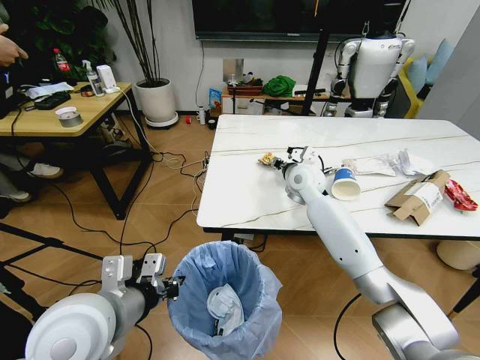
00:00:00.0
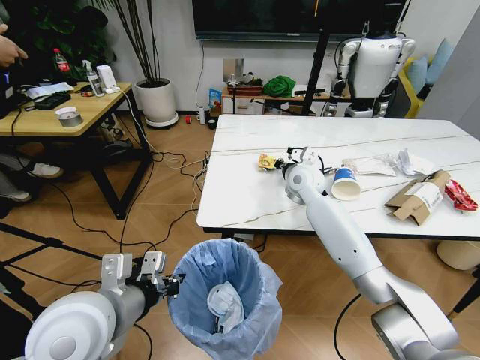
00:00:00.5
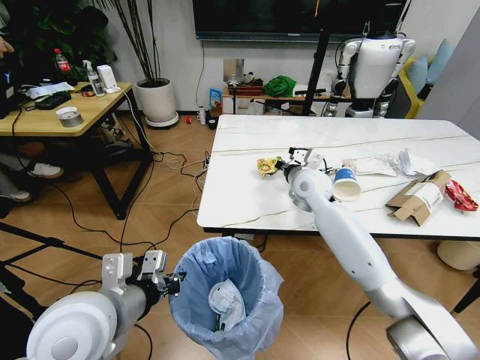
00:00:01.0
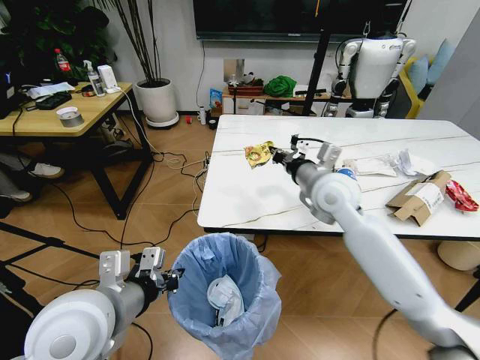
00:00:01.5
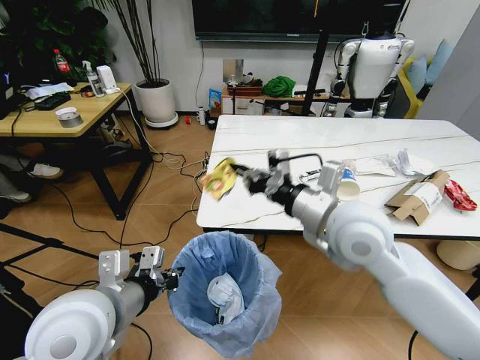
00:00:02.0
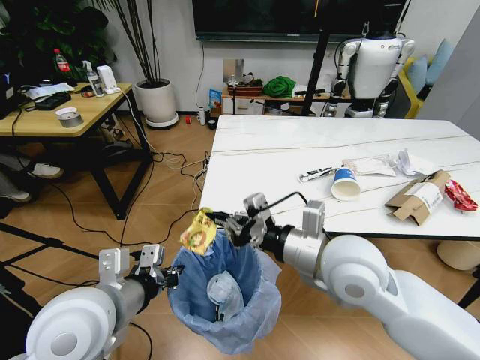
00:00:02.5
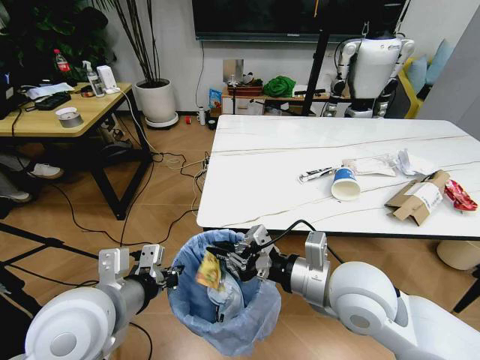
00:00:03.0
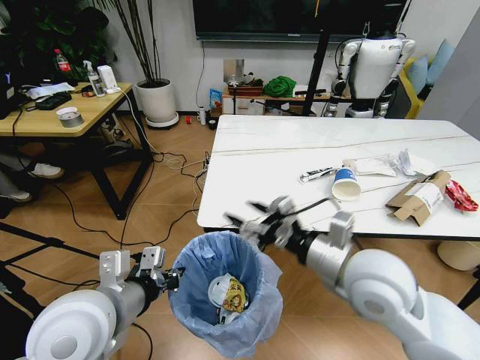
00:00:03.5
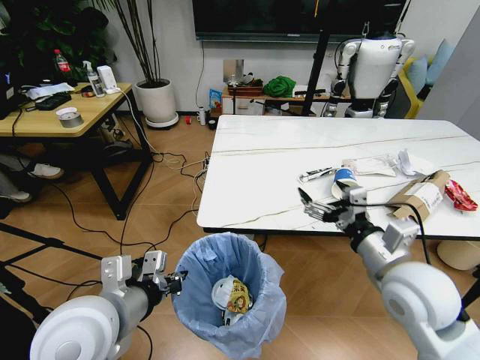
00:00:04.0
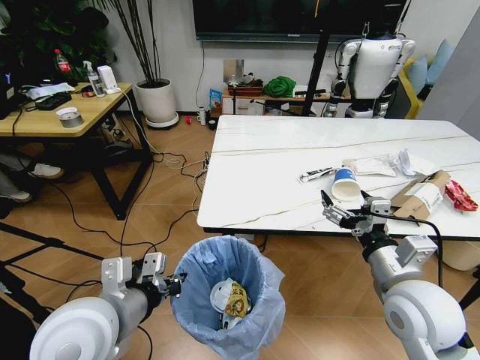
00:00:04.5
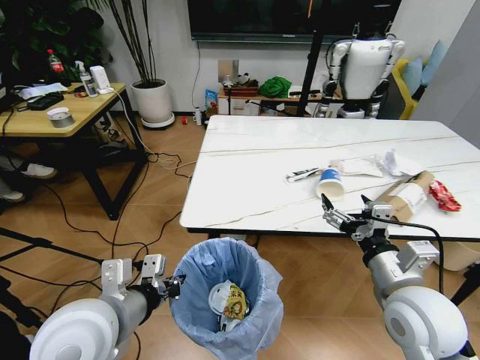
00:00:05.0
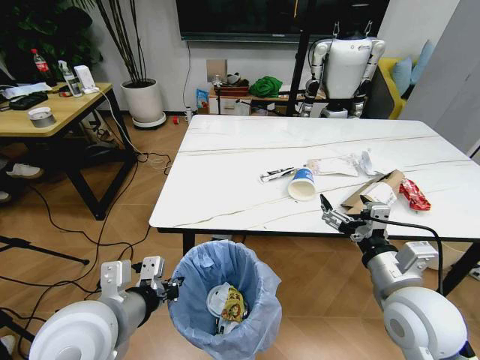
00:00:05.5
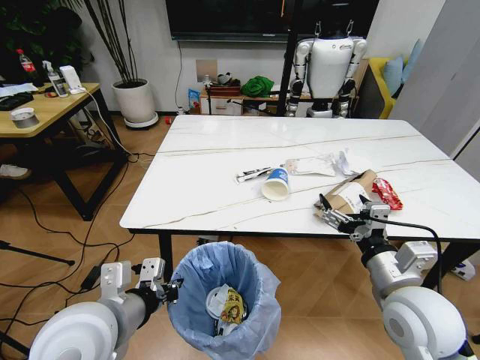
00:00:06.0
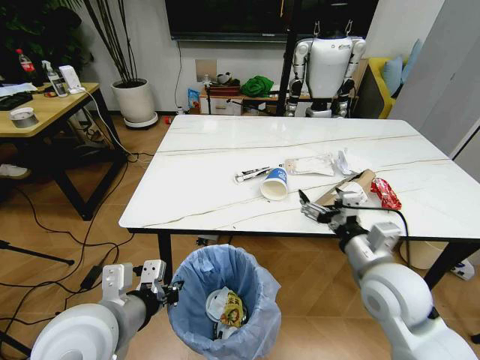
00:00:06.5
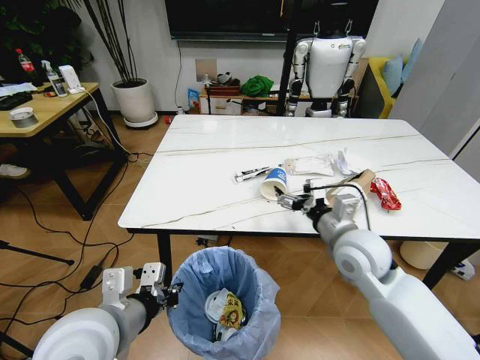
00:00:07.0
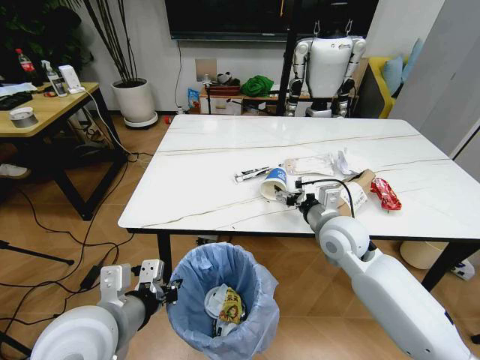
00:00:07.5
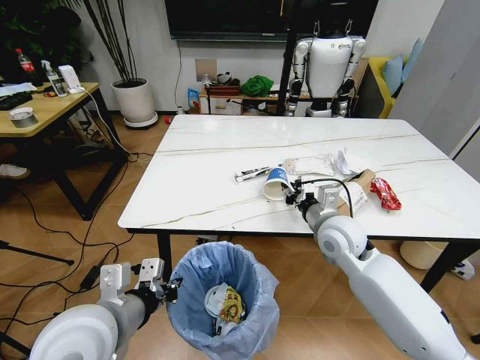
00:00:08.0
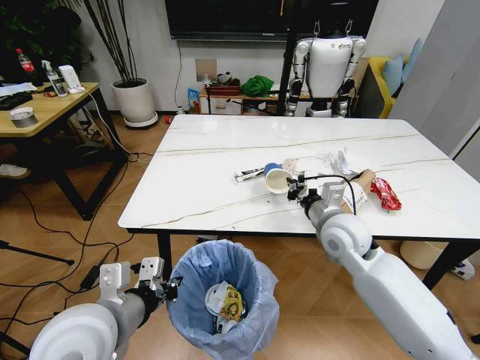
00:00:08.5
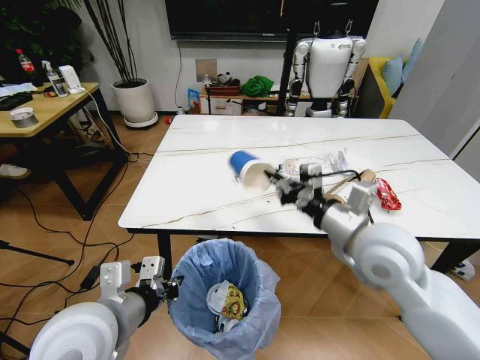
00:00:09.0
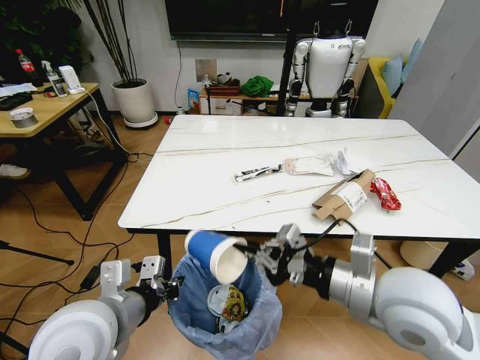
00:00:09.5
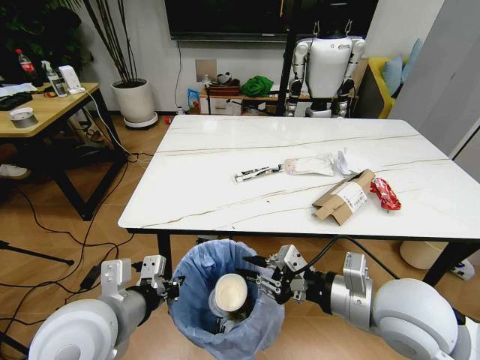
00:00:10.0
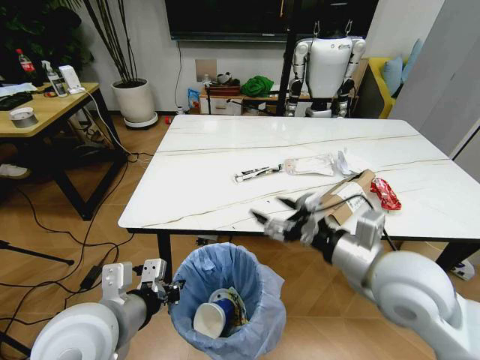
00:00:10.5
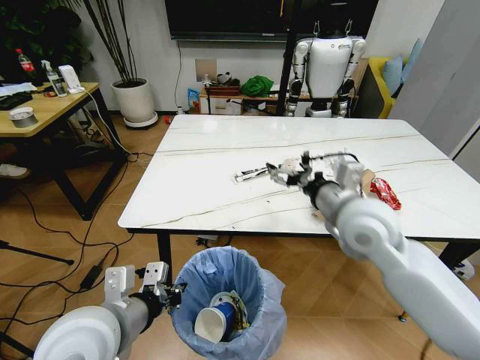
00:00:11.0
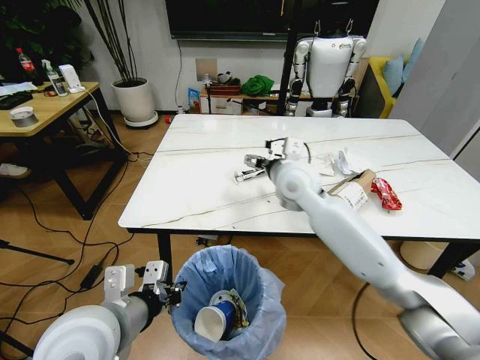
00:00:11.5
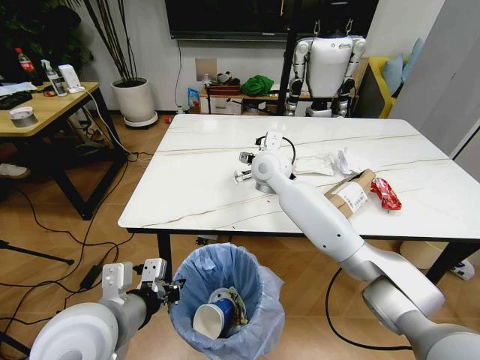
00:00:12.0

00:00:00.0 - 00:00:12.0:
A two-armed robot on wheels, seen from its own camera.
Task of the whole recording: Pick up the trash bin and place the trash from the table into it.
00:00:00.0 - 00:00:02.0: The right gripper heads backward and upward, covering some 25 cm, and closes up.
00:00:02.0 - 00:00:04.0: The right gripper heads to the right, downward and backward, covering some 15 cm, and opens up.
00:00:06.0 - 00:00:08.0: The right gripper goes roughly 15 cm forward, and closes.
00:00:08.0 - 00:00:10.0: The right gripper heads backward, covering approximately 15 cm.
00:00:10.0 - 00:00:12.0: The right gripper is displaced forward and to the left by about 35 cm, and opens up.

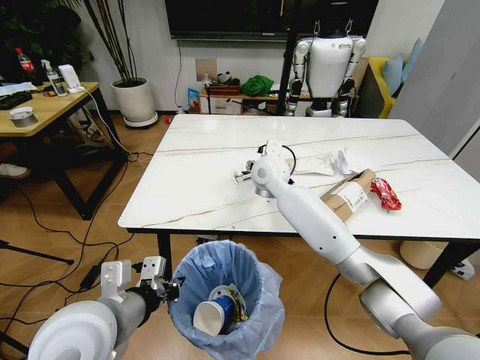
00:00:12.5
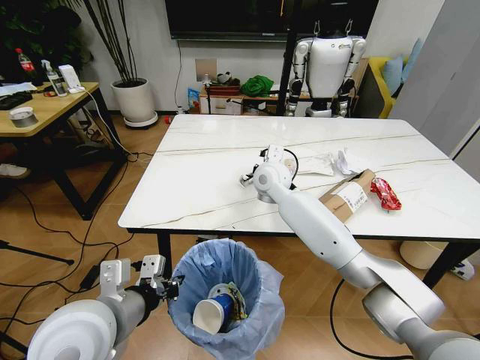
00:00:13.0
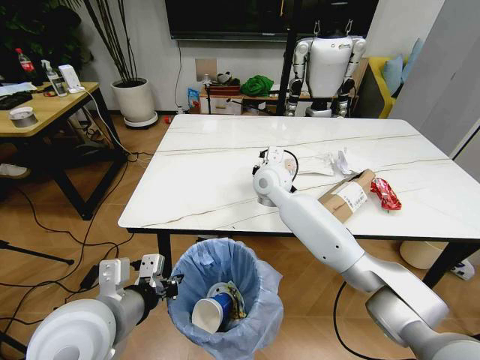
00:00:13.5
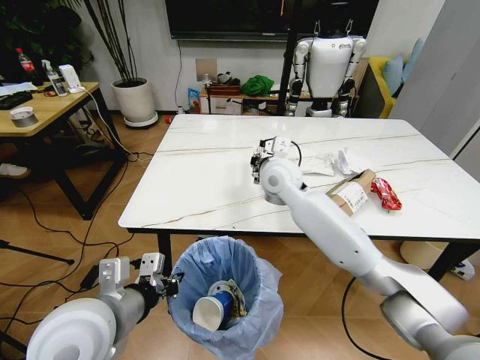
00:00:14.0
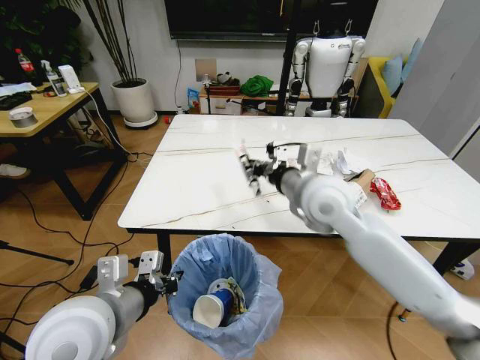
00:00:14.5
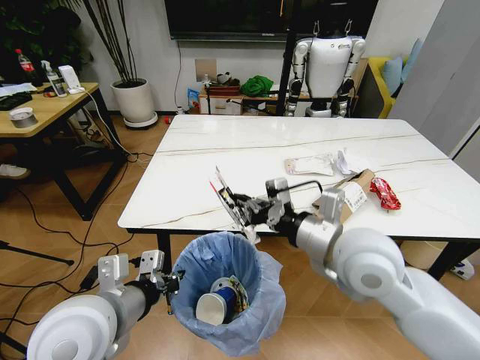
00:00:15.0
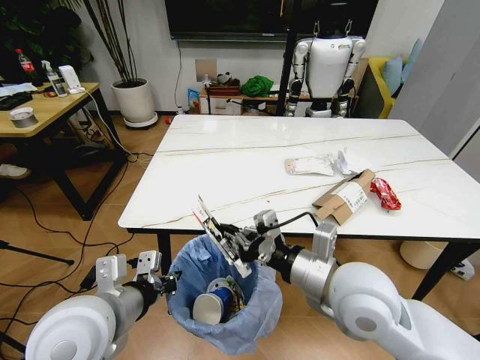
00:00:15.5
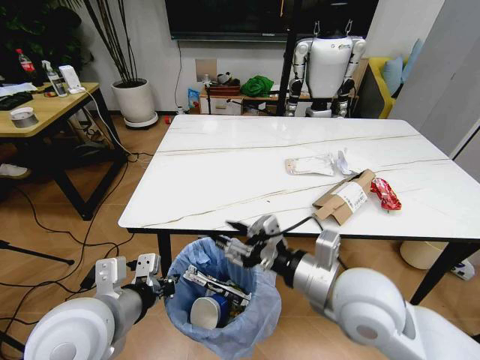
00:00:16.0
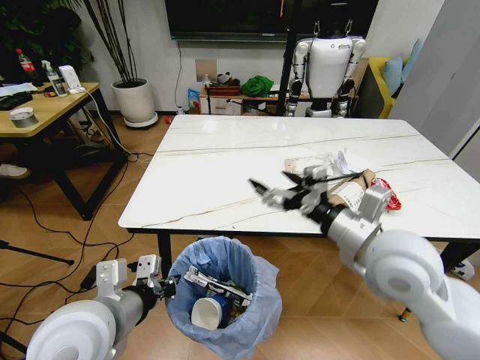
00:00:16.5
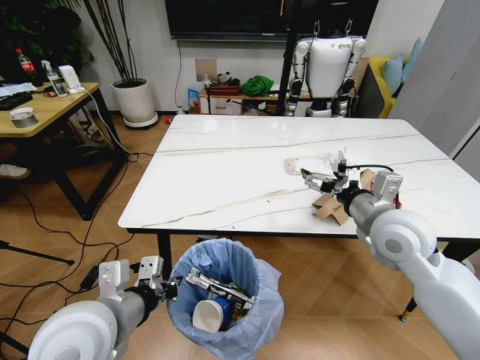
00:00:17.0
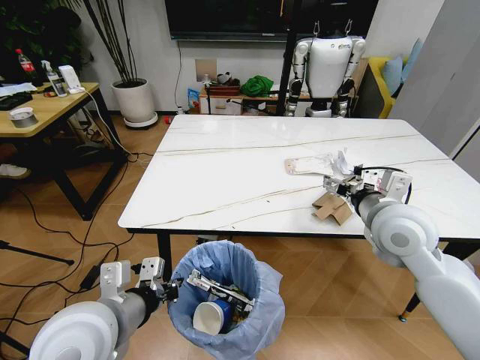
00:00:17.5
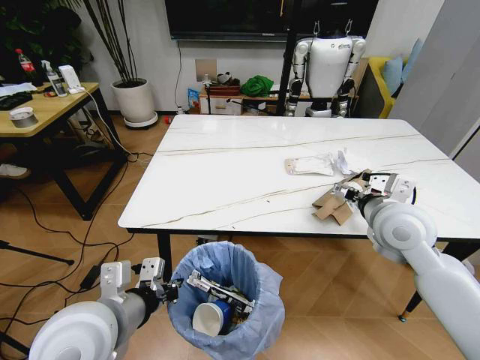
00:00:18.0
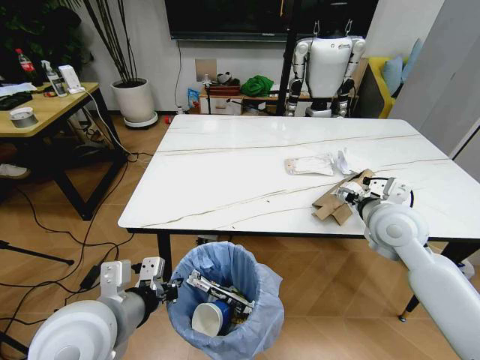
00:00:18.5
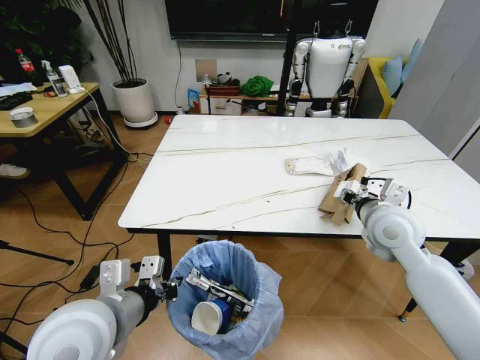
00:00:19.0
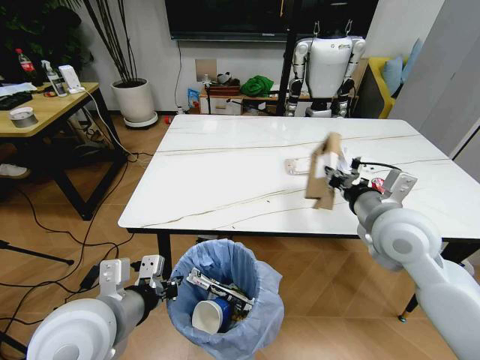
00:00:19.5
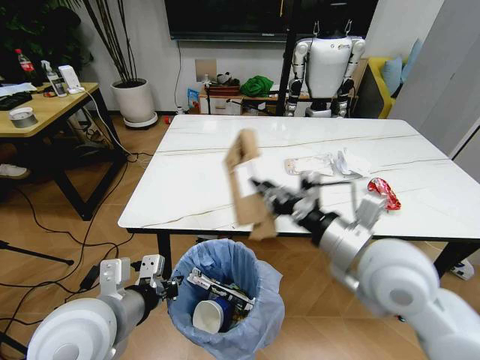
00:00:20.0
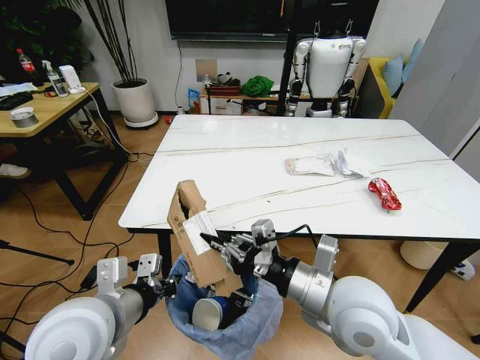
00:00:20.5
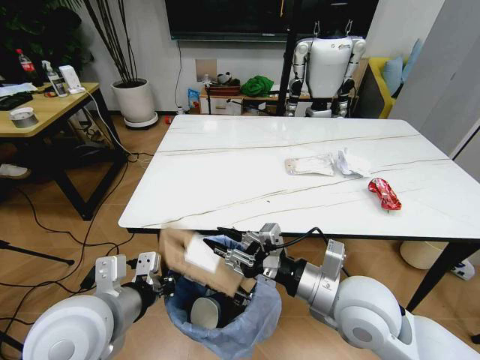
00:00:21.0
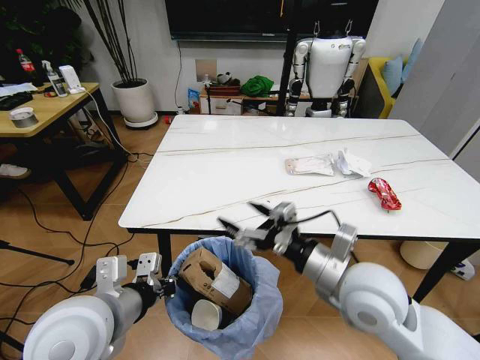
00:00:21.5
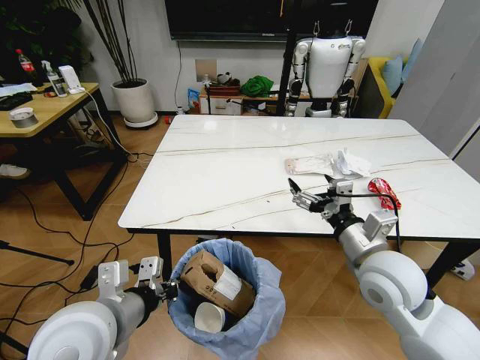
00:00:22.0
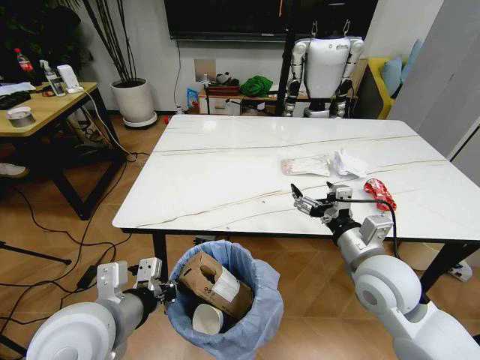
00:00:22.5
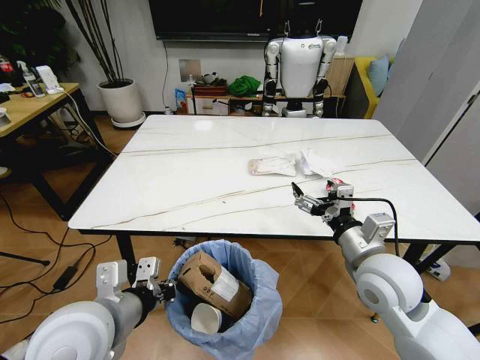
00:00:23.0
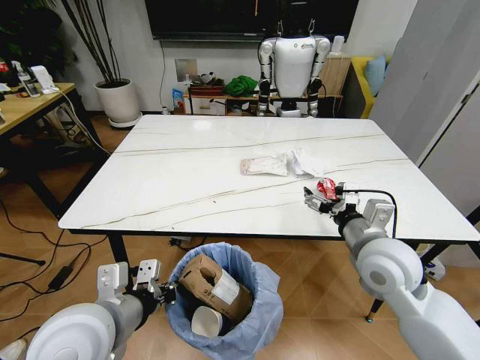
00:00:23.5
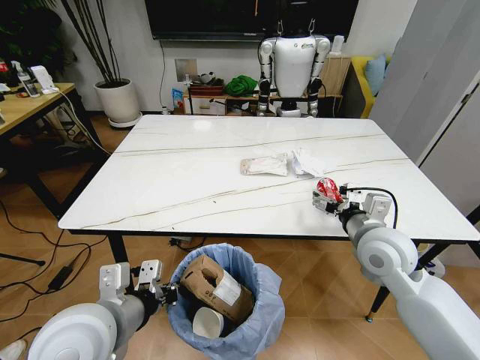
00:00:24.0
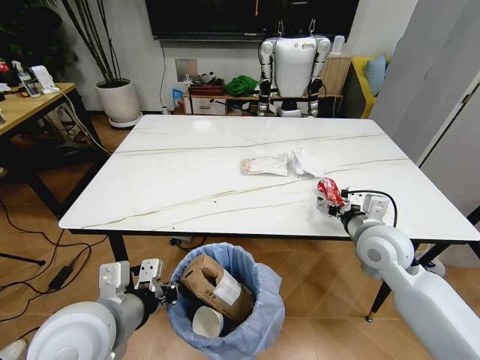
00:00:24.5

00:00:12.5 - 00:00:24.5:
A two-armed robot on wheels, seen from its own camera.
Task of the whole recording: Pick up the trash bin and place the trash from the table into it.
00:00:12.5 - 00:00:14.5: The right gripper is displaced backward and to the right by about 20 cm, and closes up.
00:00:14.5 - 00:00:16.5: The right gripper goes roughly 15 cm backward and to the right, and opens its fingers.
00:00:16.5 - 00:00:18.5: The right gripper shifts about 15 cm forward and to the right.
00:00:18.5 - 00:00:20.5: The right gripper shifts roughly 20 cm backward and to the left, and closes up.
00:00:20.5 - 00:00:22.5: The right gripper moves to the right and forward, approximately 10 cm, and opens its fingers.
00:00:22.5 - 00:00:24.5: The right gripper shifts roughly 5 cm forward.

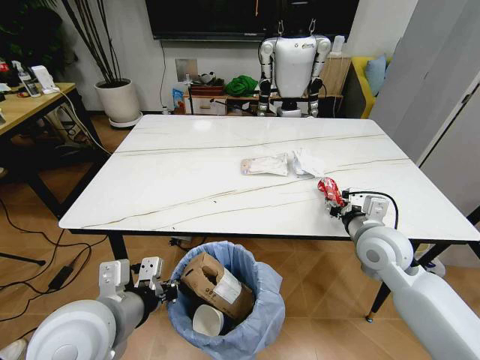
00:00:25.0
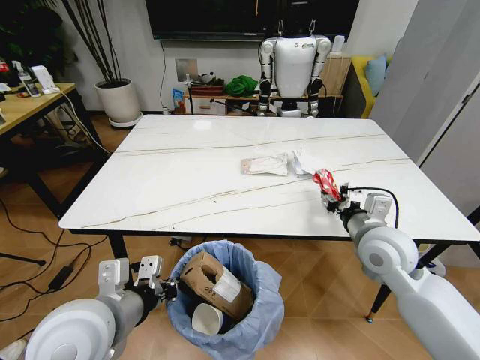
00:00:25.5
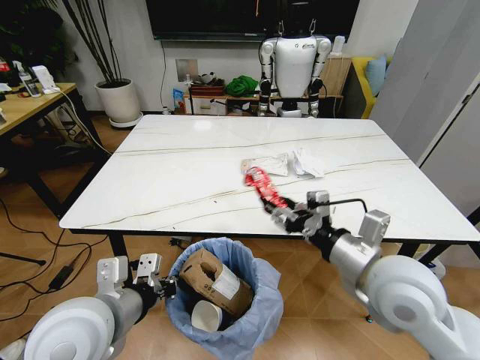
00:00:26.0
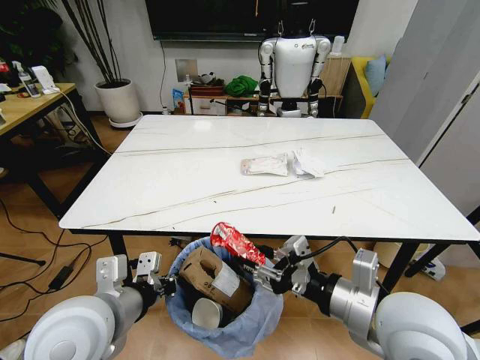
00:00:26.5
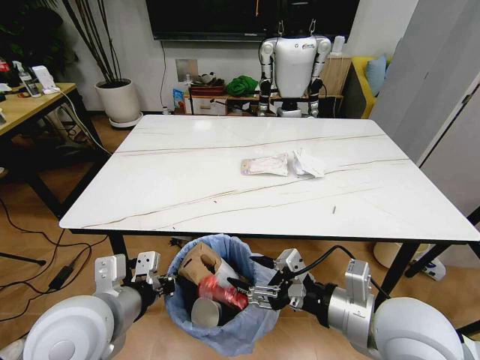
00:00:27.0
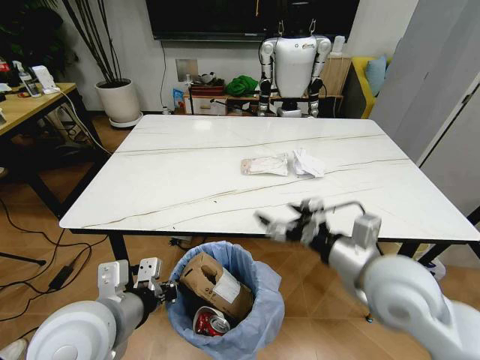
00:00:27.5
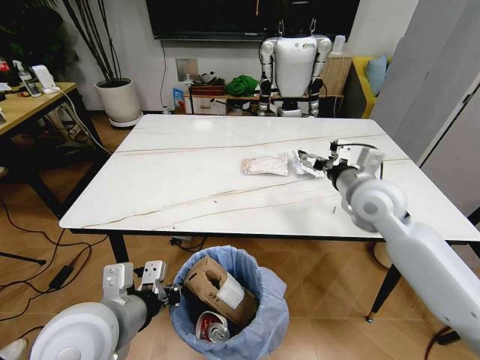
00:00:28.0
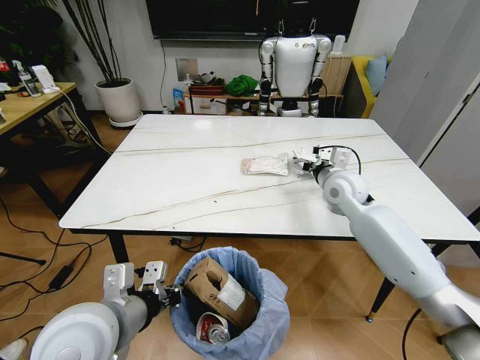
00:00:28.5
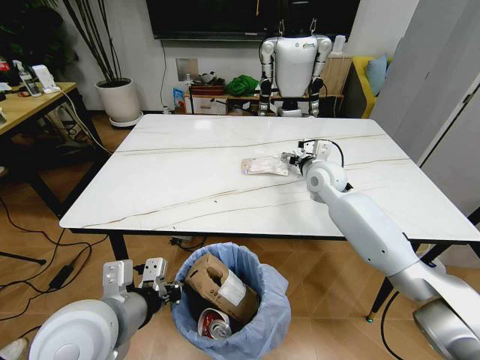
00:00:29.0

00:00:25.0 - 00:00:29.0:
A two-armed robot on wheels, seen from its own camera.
Task of the whole recording: Pick up the trash bin and place the trash from the table into it.
00:00:25.0 - 00:00:27.0: The right gripper is displaced backward by approximately 15 cm.
00:00:27.0 - 00:00:29.0: The right gripper shifts approximately 35 cm forward.
